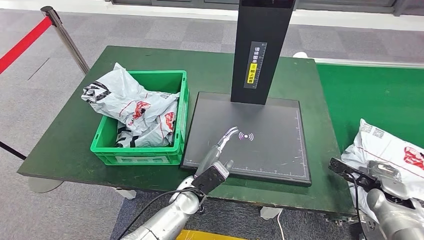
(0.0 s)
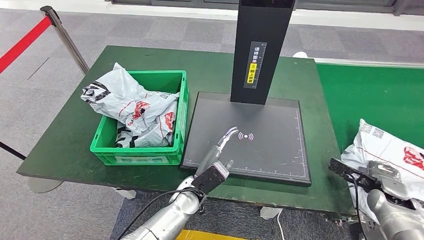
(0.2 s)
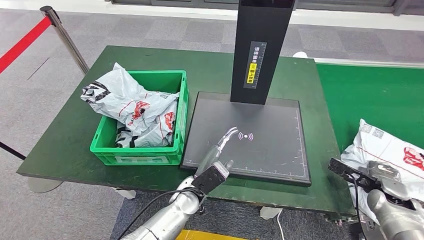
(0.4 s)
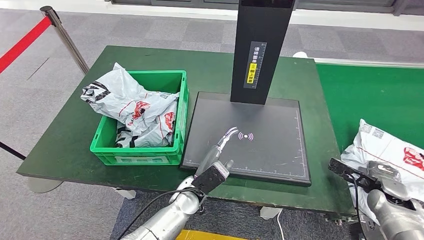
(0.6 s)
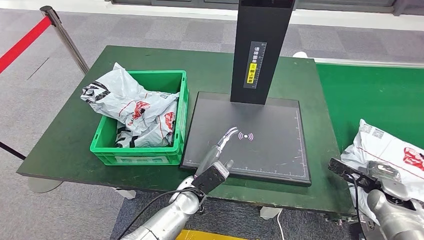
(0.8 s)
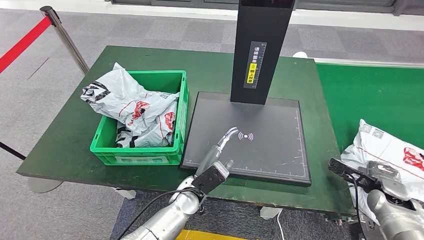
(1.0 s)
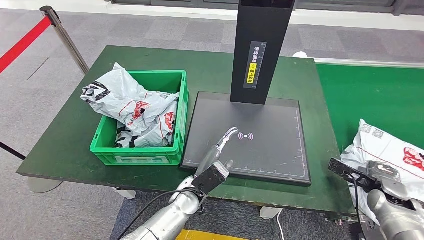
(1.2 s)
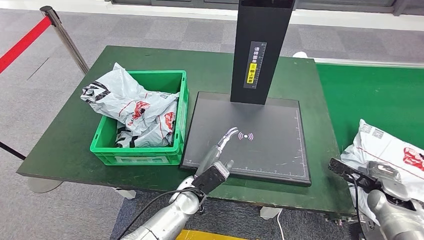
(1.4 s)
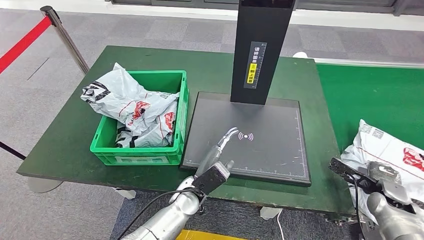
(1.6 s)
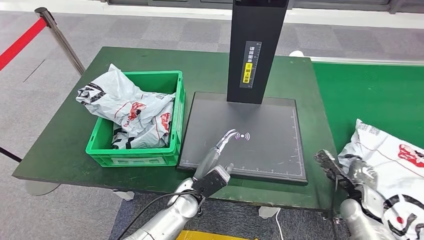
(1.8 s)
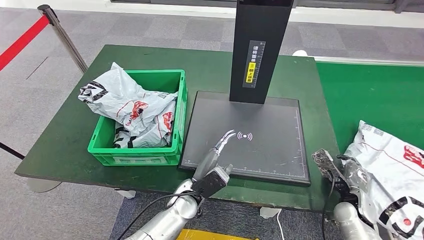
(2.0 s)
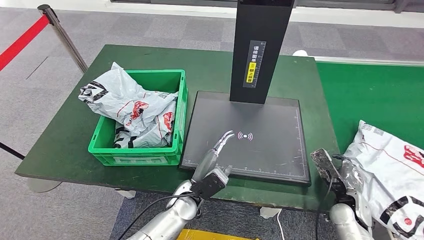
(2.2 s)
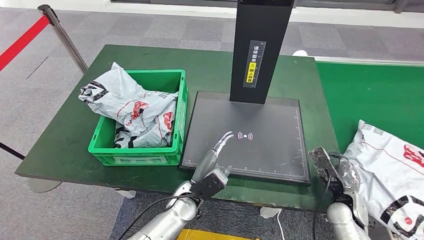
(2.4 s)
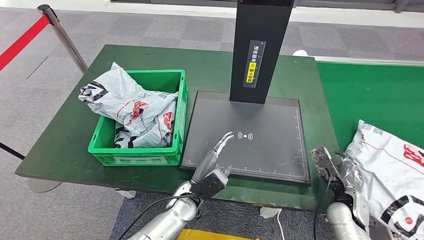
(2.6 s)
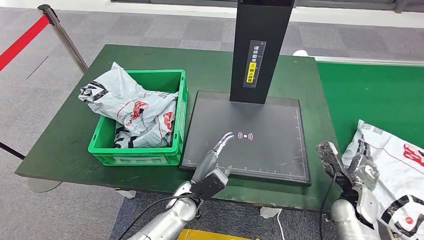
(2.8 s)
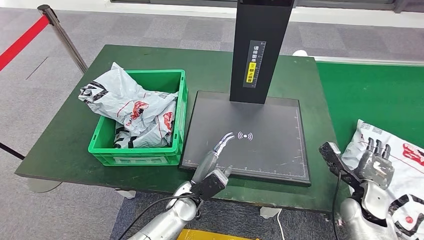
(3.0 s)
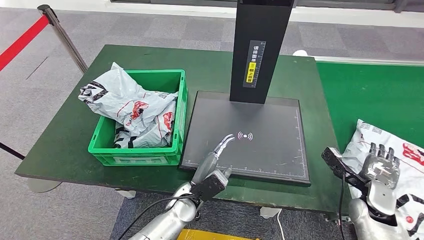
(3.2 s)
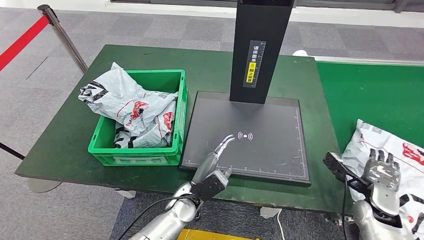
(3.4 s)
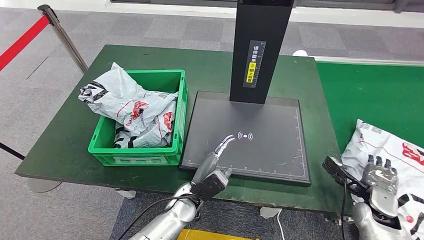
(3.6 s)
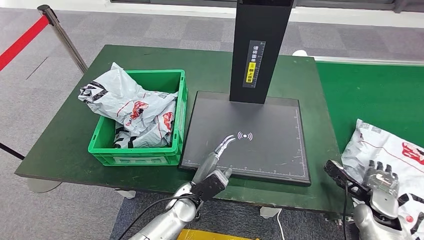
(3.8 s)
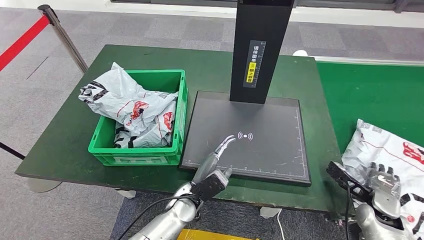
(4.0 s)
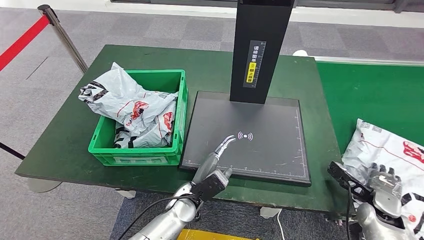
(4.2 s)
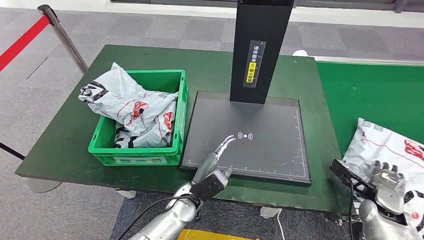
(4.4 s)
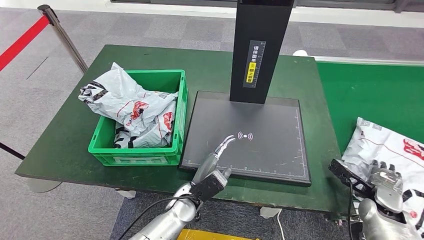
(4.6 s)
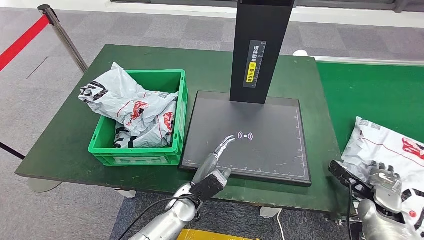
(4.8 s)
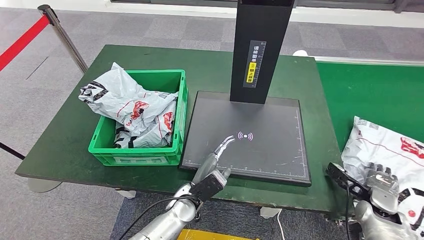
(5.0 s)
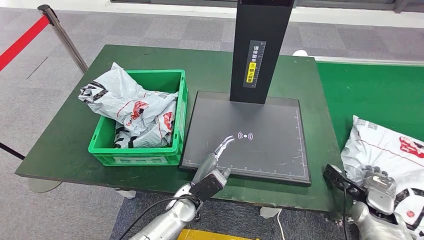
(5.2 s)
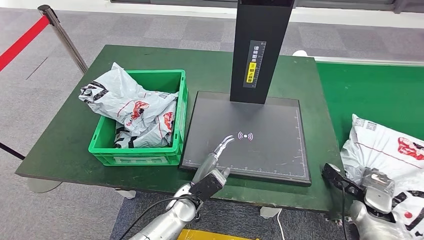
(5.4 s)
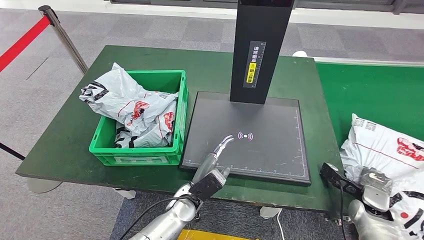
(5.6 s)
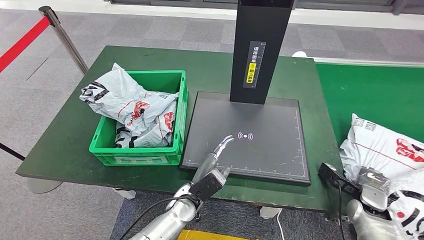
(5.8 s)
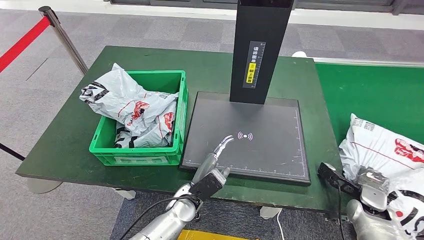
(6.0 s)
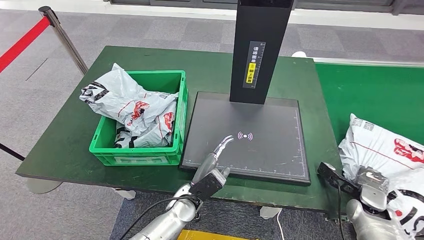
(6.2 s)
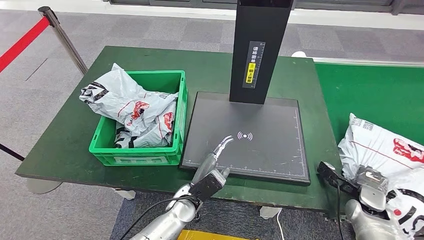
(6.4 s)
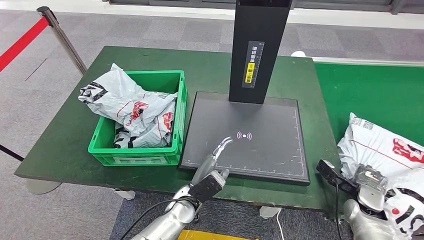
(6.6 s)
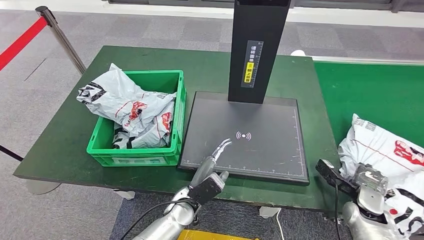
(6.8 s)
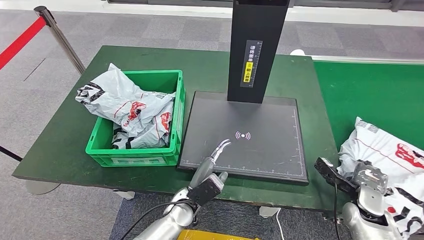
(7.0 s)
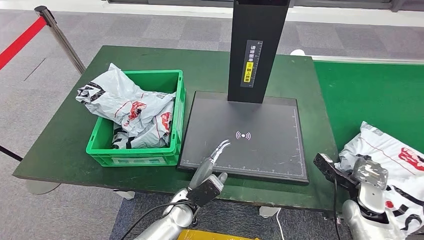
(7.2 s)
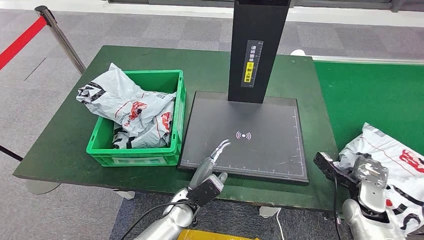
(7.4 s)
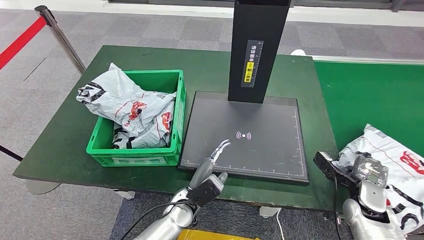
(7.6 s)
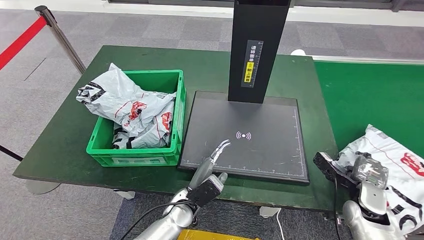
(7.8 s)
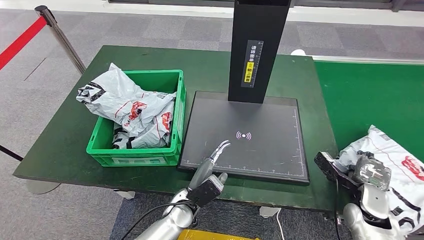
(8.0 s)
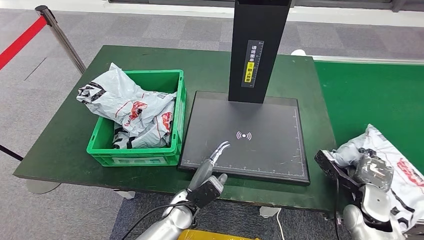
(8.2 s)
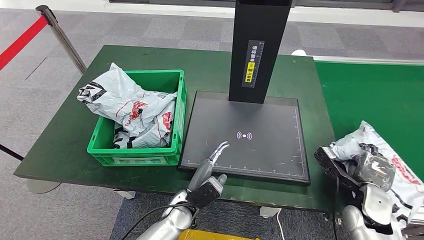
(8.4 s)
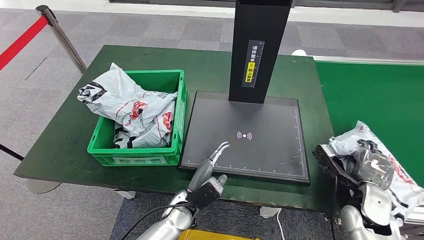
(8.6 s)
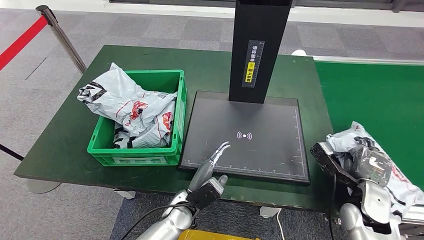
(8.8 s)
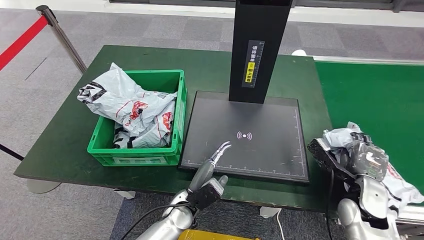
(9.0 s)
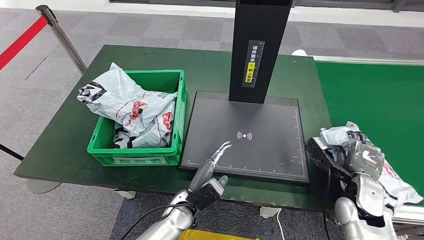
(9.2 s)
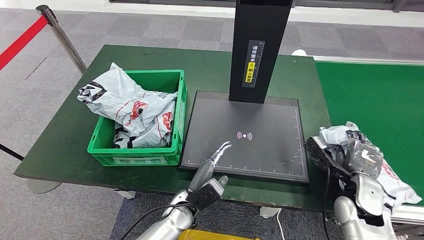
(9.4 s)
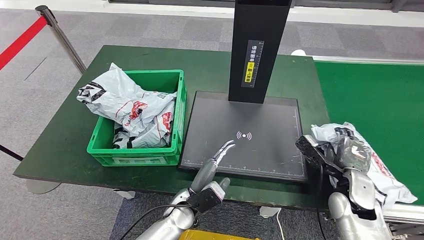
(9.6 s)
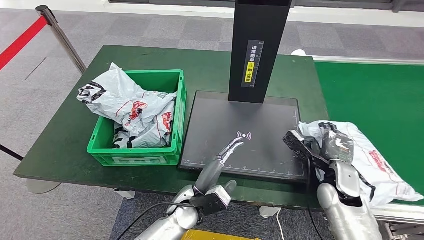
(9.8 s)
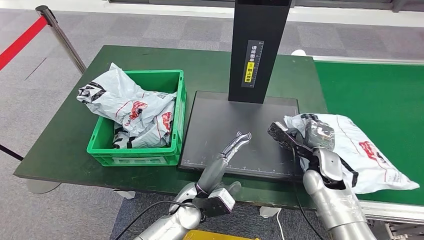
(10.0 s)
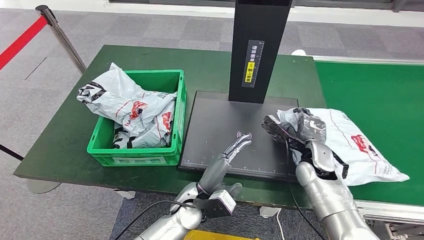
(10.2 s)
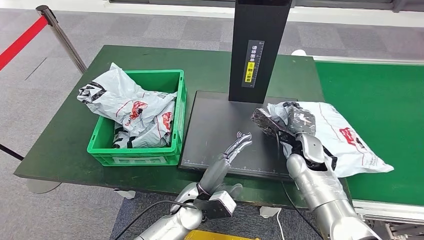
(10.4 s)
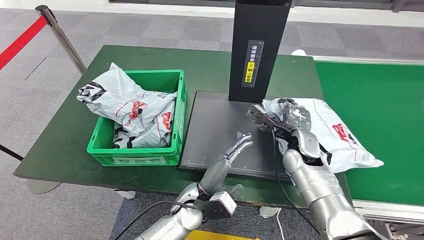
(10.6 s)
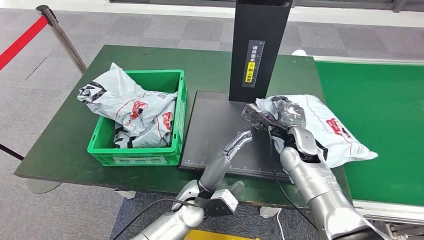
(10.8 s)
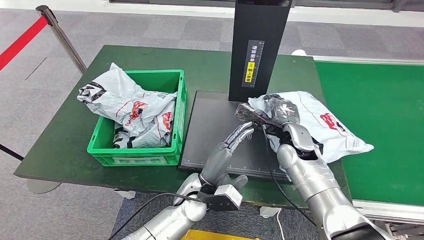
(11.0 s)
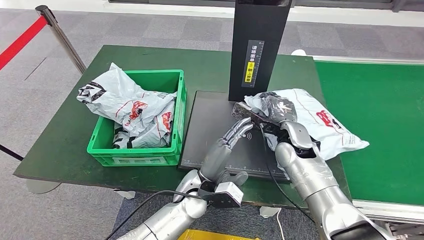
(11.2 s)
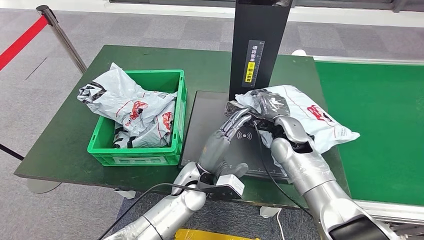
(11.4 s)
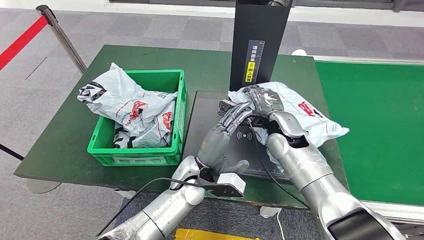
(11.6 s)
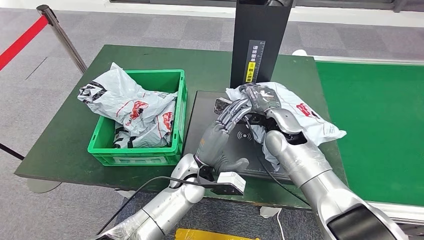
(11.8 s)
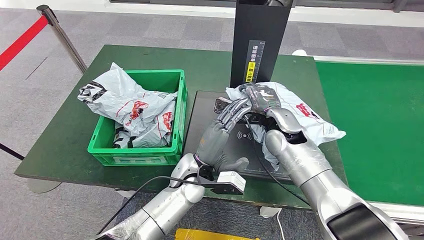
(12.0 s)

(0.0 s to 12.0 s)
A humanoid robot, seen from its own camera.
Step, 0.0 s - 10.2 s: Pick up the parcel from the conveyor belt.
0.0 s - 1.6 s: There are only small adjustments of the hands.
1.6 s - 3.0 s: The right hand moves to the left, approximately 10 cm.
3.0 s - 4.4 s: The right hand heads to the right, covering about 5 cm.
4.4 s - 7.6 s: The hands stay close to where they were, moving slightly.
7.6 s - 9.0 s: The right hand moves upward, about 5 cm.
9.0 s - 10.4 s: The right hand travels to the left and forward by roughly 15 cm; the left hand shifts by roughly 5 cm.

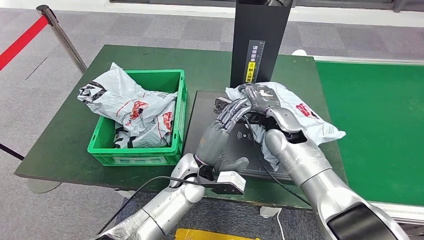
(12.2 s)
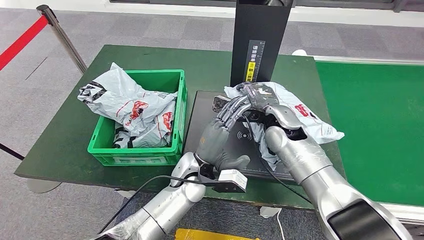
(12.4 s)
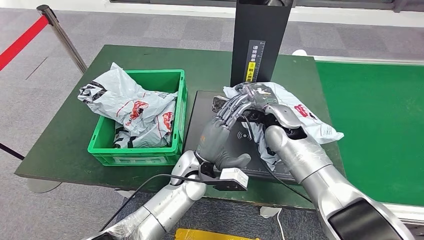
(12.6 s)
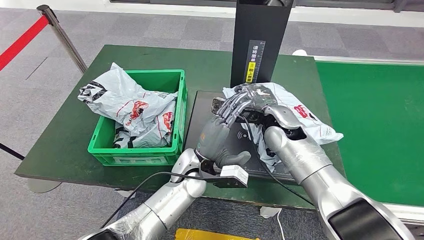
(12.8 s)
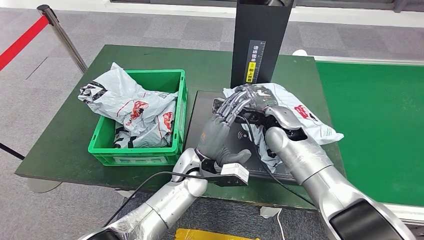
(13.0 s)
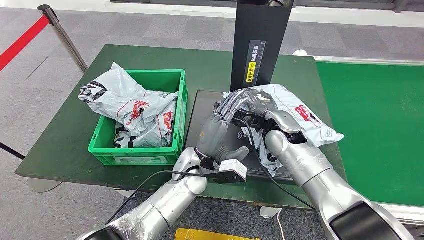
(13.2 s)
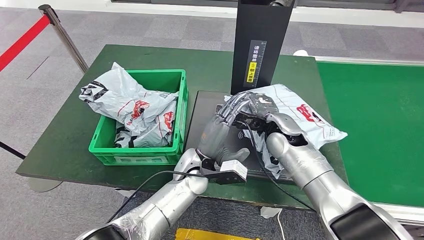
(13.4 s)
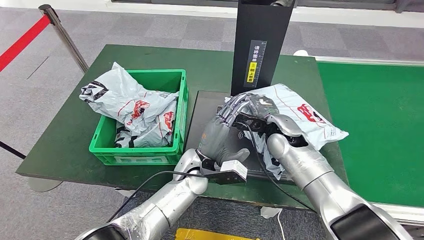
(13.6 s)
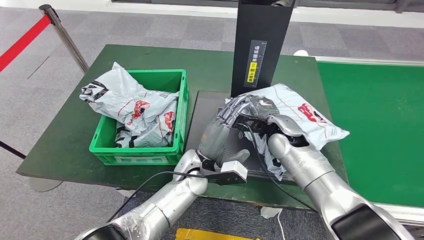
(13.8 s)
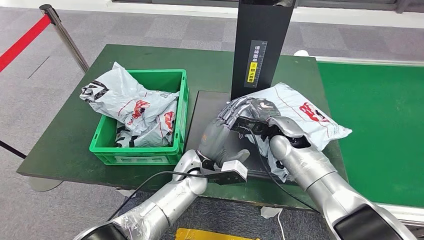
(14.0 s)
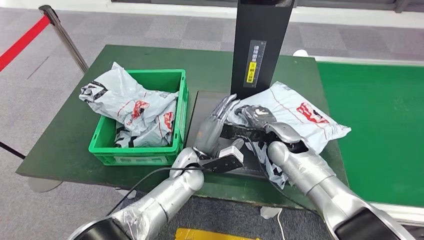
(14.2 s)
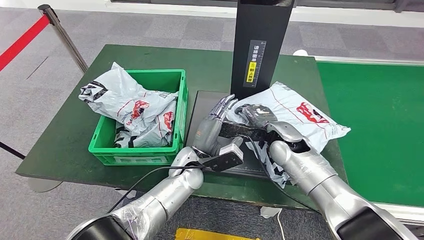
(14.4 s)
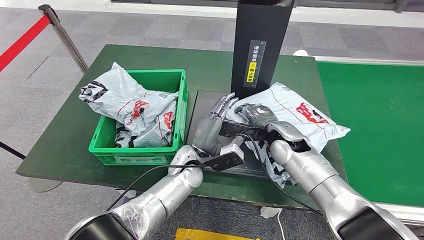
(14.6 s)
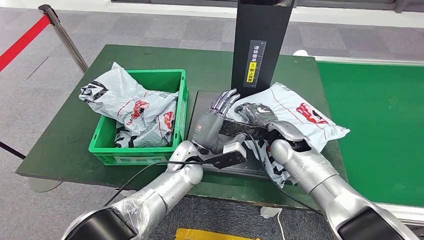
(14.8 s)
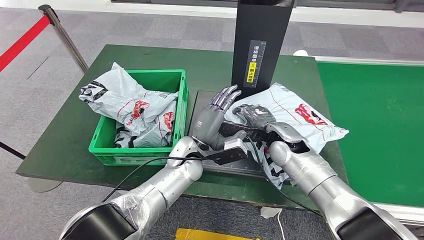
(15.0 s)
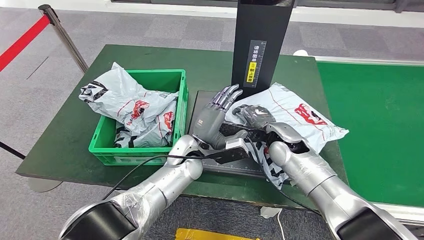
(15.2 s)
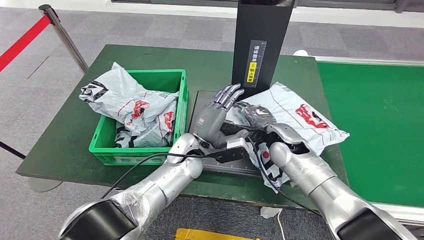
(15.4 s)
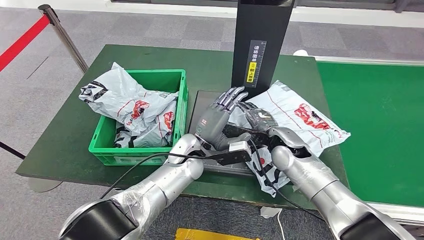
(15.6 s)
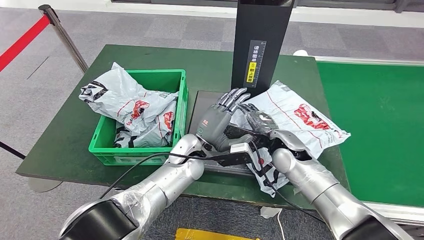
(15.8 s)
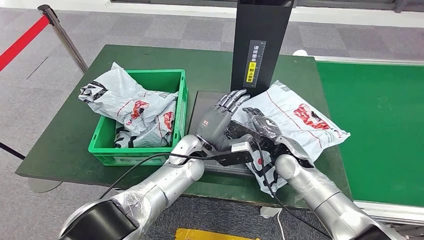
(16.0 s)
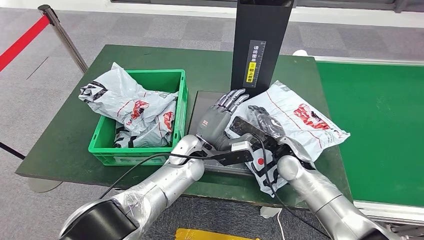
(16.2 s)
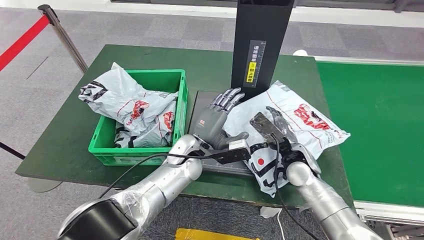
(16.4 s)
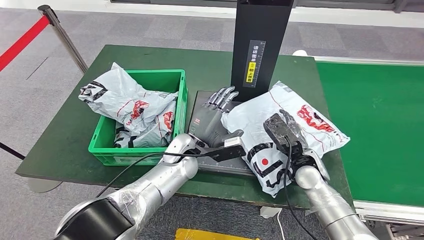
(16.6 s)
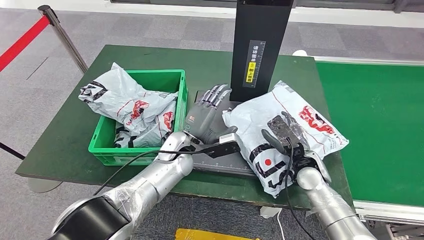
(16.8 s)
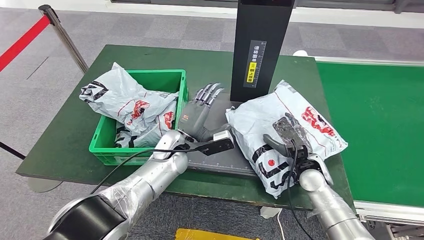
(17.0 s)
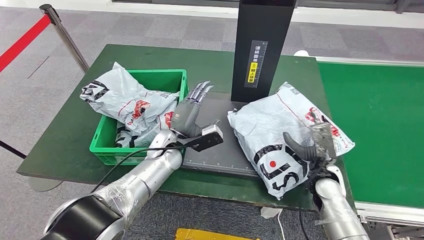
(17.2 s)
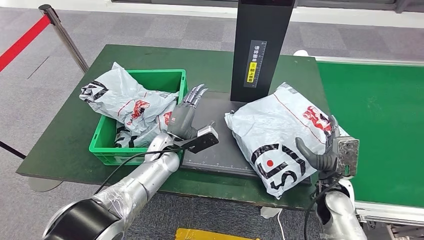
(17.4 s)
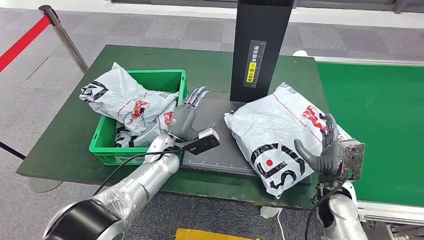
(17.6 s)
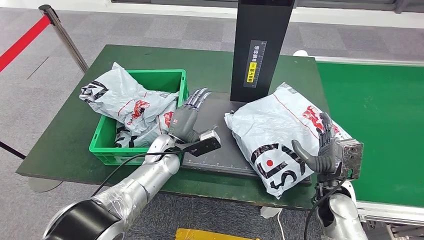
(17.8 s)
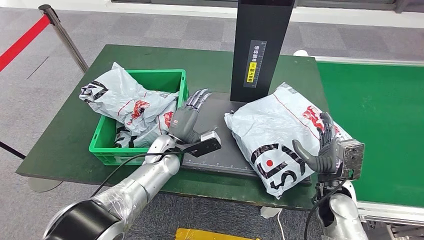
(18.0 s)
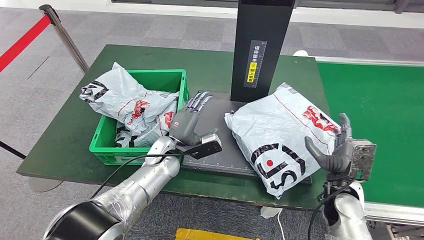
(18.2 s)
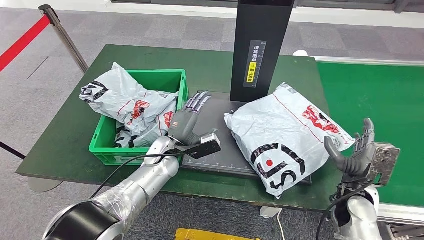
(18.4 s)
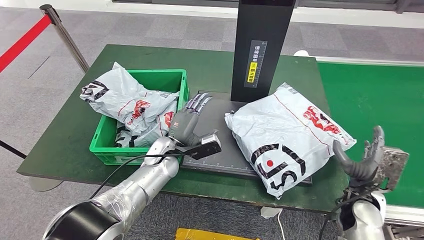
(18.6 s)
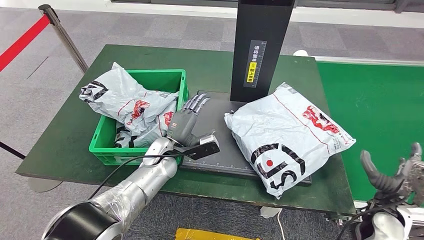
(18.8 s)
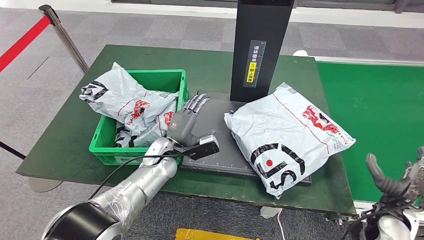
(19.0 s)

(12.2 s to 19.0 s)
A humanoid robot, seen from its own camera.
Step, 12.2 s - 16.0 s: Place the parcel onto the inbound machine.
12.2 s - 15.0 s: There are only small adjustments of the hands.
15.0 s - 16.2 s: The right hand shifts by approximately 5 cm.
17.6 s - 19.0 s: The right hand travels to the right by about 10 cm.
